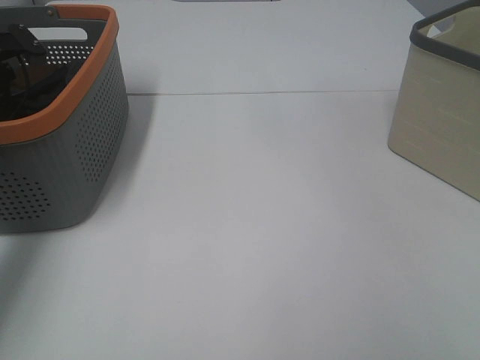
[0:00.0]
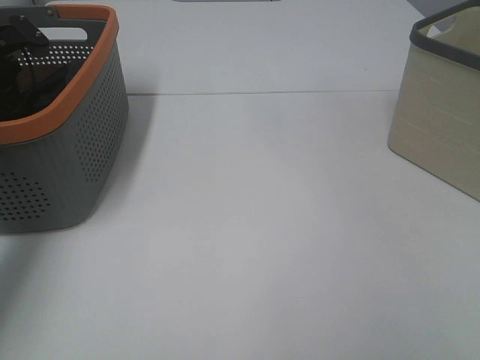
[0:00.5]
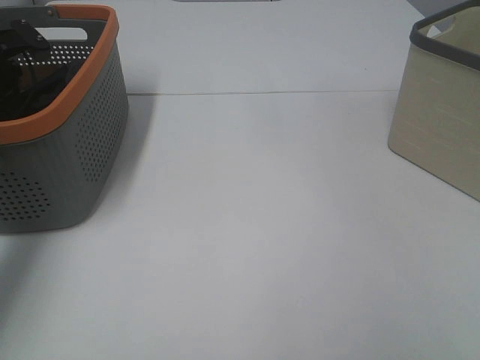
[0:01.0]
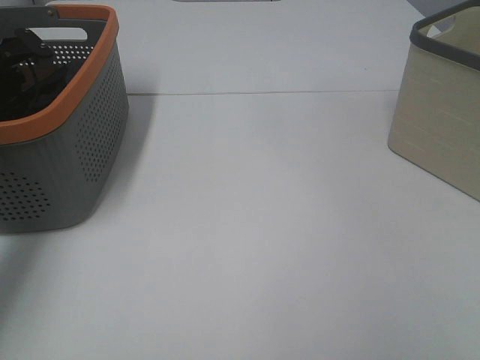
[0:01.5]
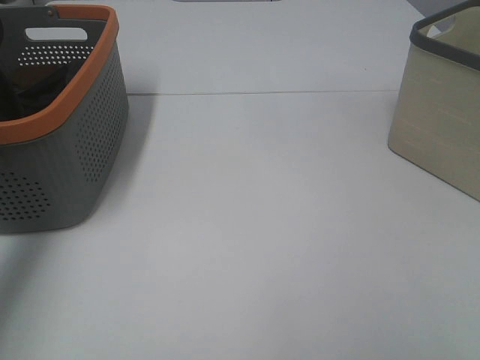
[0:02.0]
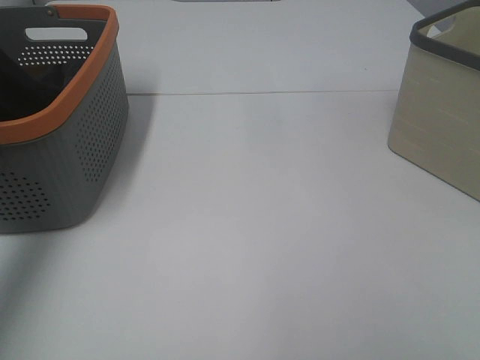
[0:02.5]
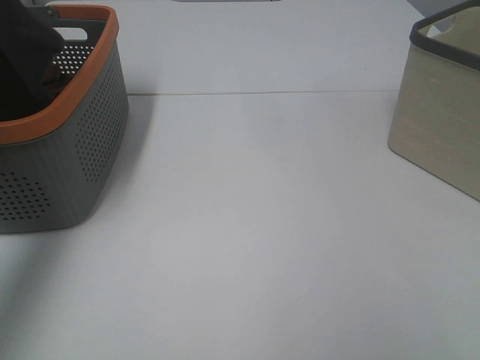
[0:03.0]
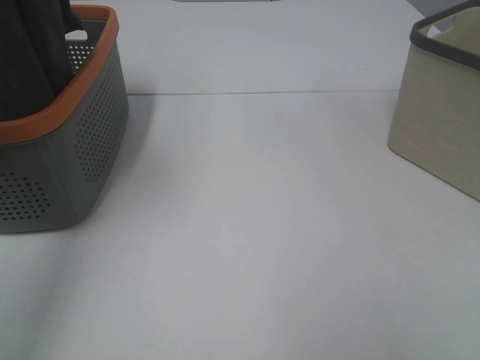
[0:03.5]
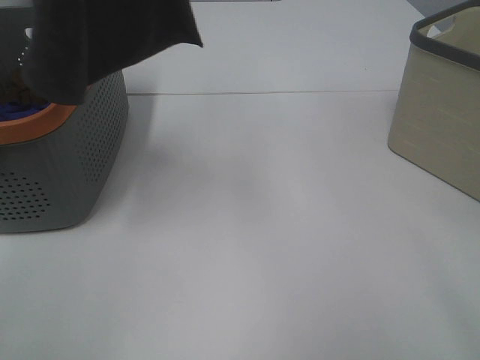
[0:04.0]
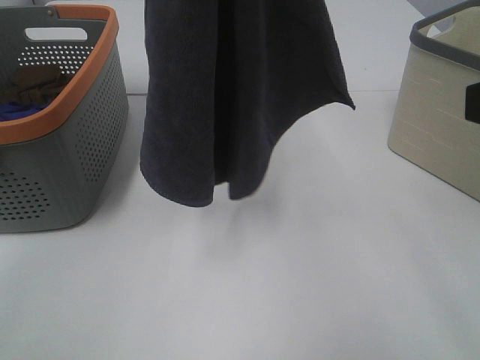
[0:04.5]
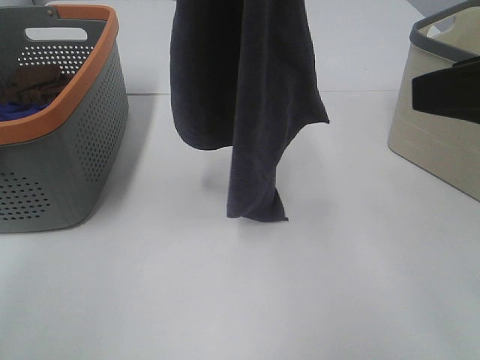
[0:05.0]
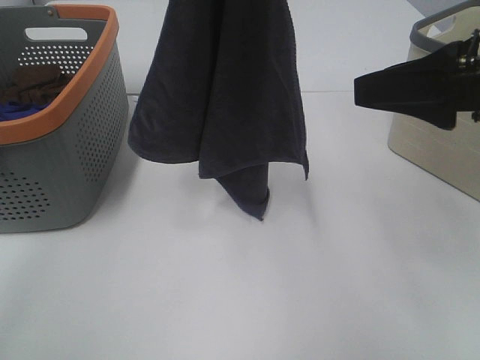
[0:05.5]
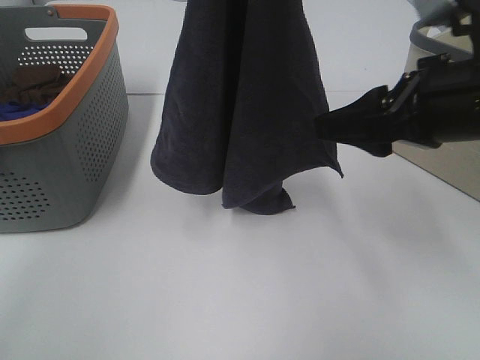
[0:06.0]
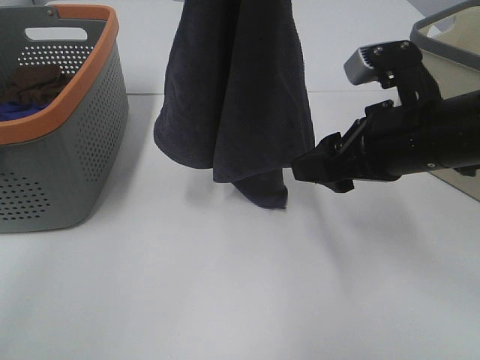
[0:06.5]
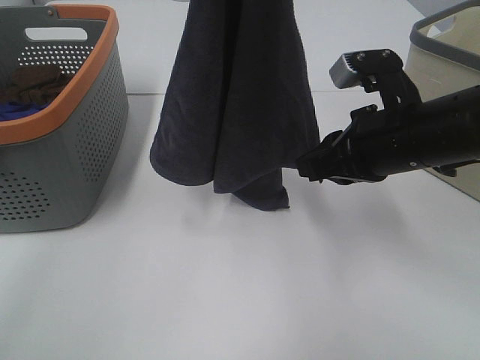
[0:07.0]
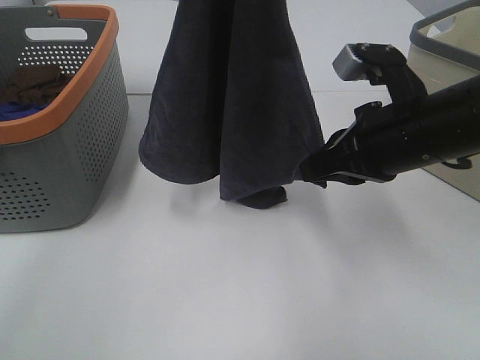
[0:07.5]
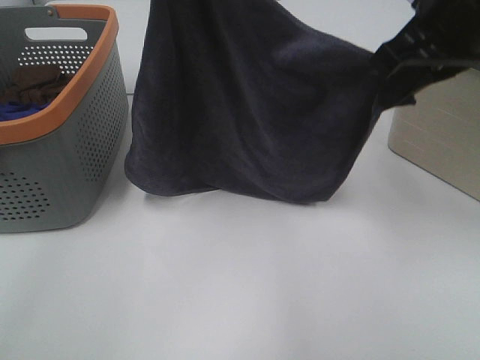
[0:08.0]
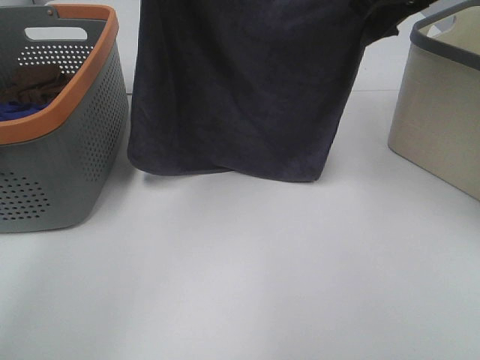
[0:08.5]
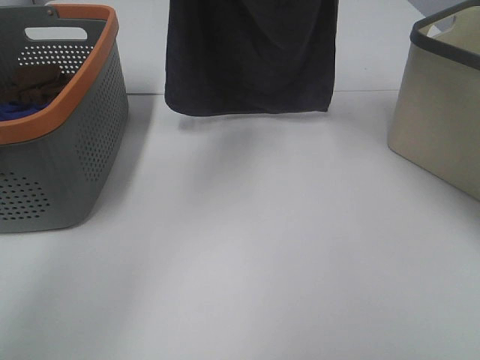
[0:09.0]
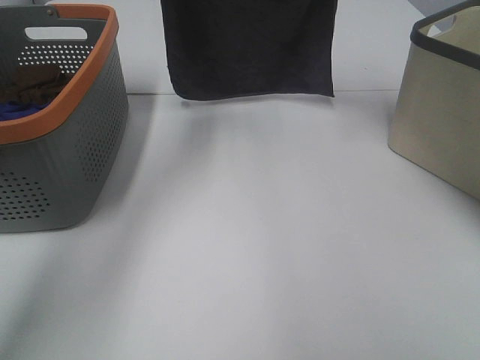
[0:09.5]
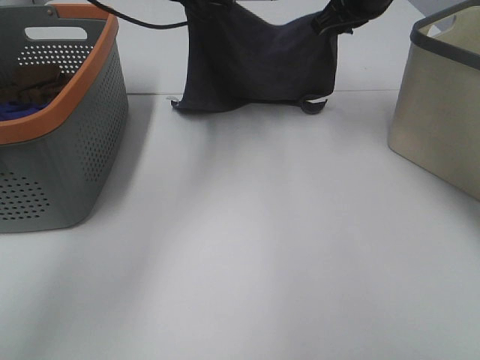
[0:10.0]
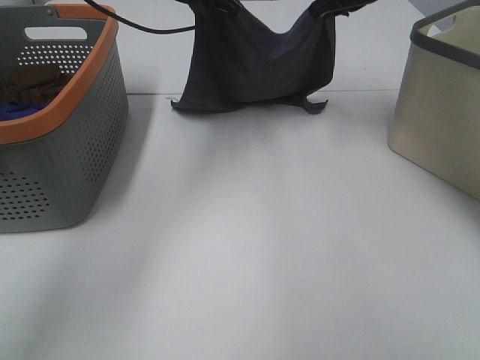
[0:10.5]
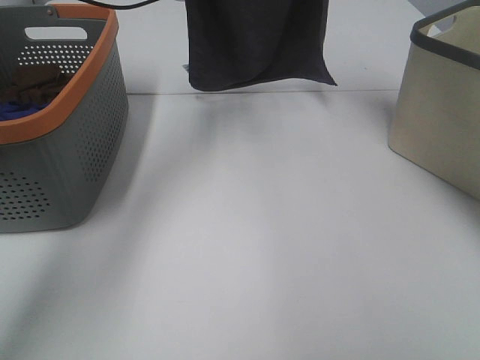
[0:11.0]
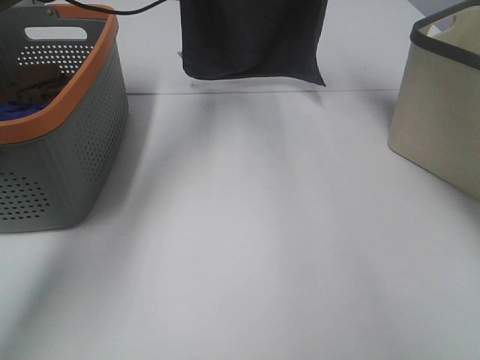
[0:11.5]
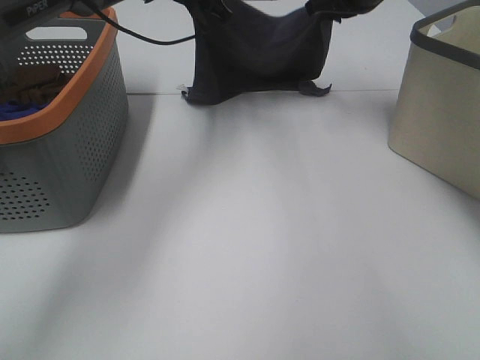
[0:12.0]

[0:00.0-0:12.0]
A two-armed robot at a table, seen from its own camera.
Task of the whole recording: Remove the towel and place it.
Step, 0:03.0 to 0:06.0: Right hand: grab a corner of the grey towel and straighten it.
Step, 0:06.5 to 0:11.0: Right hand: spread the grey towel flat on the table.
Step, 0:06.5 to 0:11.5: Left hand: spread the grey towel flat on the table.
0:02.0 to 0:04.0: The left gripper heads upward, to the right and backward, covering roughly 35 cm. The right gripper heads forward and upward, covering about 10 cm.
0:04.0 to 0:06.0: The right gripper moves forward and downward, roughly 20 cm. The left gripper travels downward and to the right by about 10 cm.
0:06.0 to 0:08.0: The left gripper changes place by about 5 cm. The right gripper goes some 10 cm upward and forward, and closes its fingers.
0:08.0 to 0:10.0: The left gripper heads forward and downward, covering some 20 cm, while the right gripper travels forward by some 20 cm.
0:10.0 to 0:12.0: The right gripper moves approximately 10 cm upward and comes back.

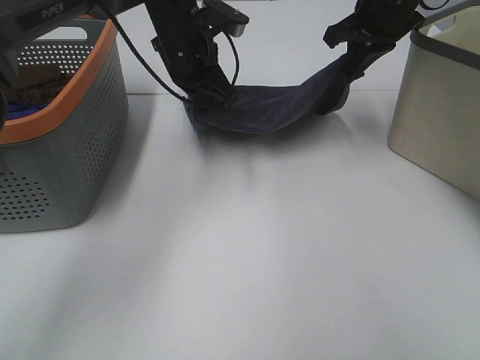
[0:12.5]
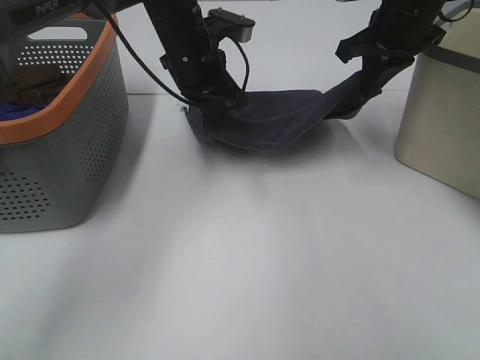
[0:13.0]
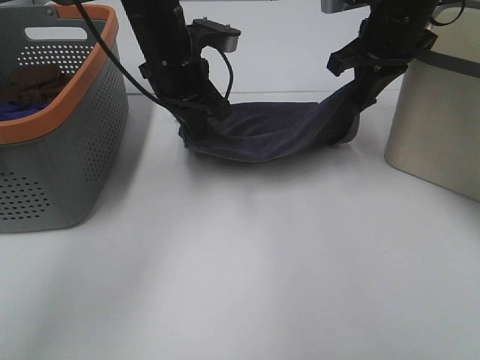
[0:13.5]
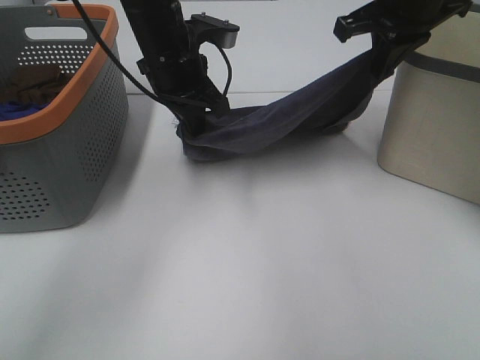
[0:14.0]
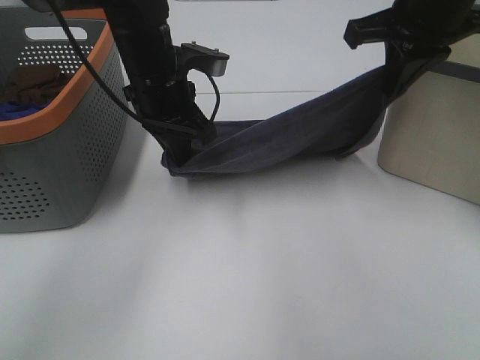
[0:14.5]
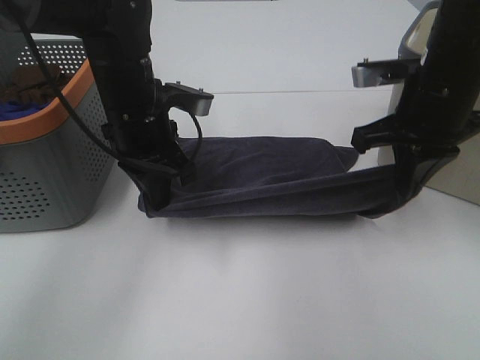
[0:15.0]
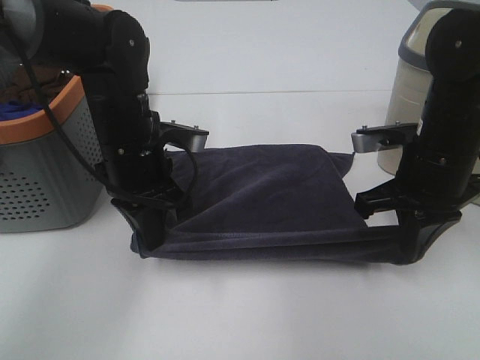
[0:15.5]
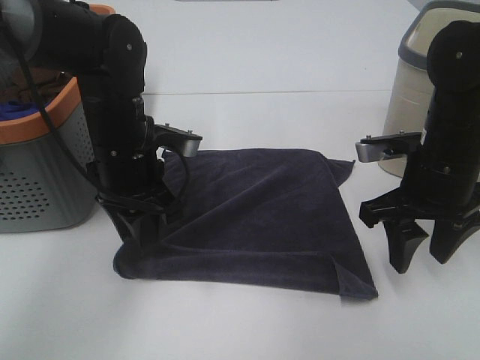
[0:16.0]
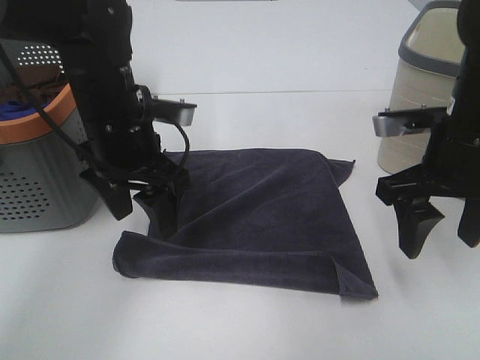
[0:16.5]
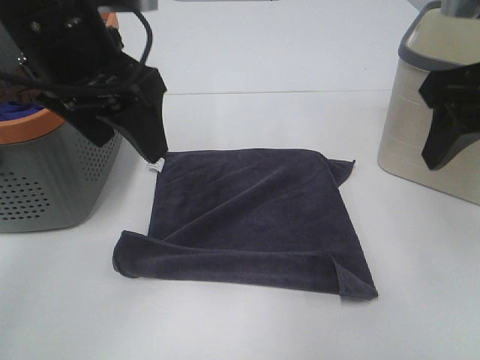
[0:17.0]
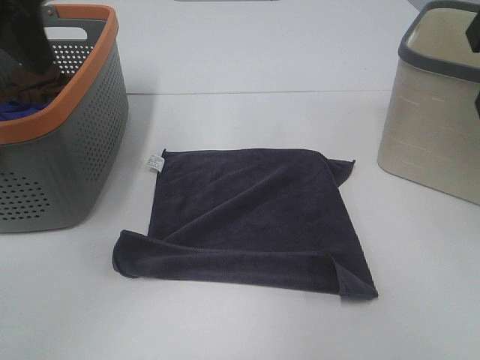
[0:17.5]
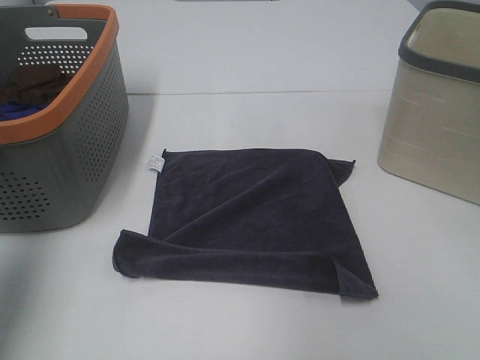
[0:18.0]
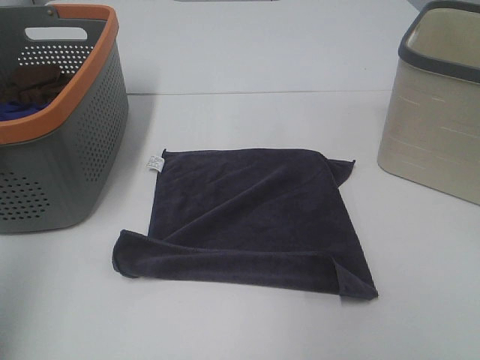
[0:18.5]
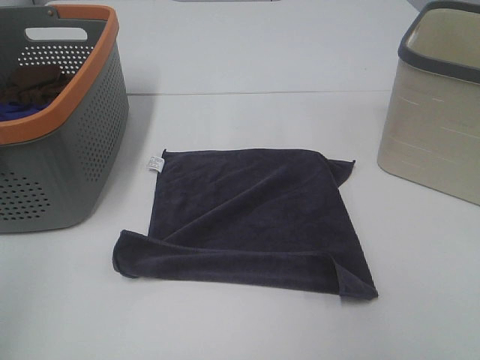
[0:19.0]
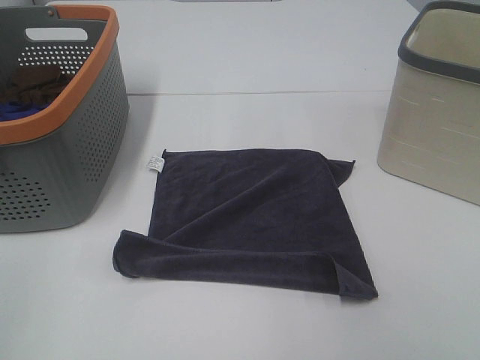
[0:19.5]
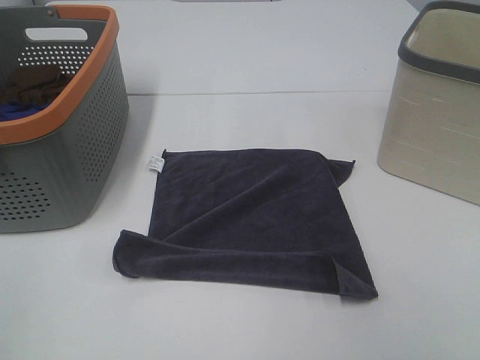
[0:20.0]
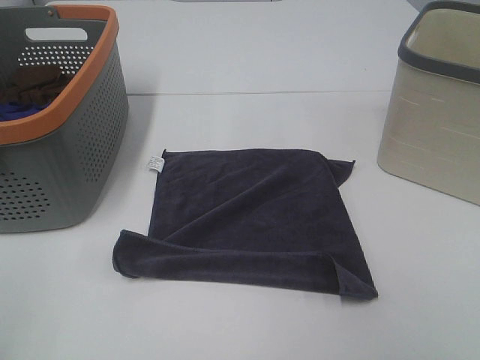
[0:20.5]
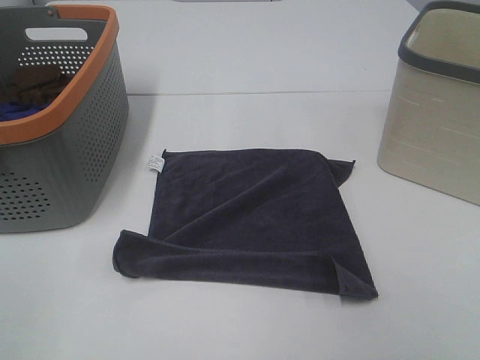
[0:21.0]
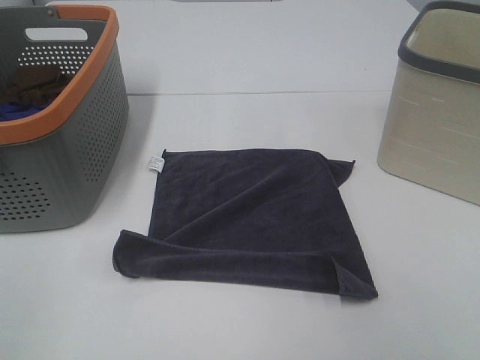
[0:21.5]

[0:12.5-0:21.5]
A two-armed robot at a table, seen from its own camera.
Task of the whole recording: Remove the towel and place it.
0:12.5 to 0:14.5: The left gripper travels backward by some 10 cm. Meanwhile the right gripper is displaced backward by about 10 cm.
0:14.5 to 0:17.0: The left gripper shifts roughly 15 cm upward and backward, and opens its fingers. Meanwhile the right gripper heads backward, covering roughly 10 cm, reaches approximately 15 cm downward, then returns, and opens its fingers.
0:17.0 to 0:19.5: The left gripper heads backward and to the left, covering roughly 35 cm, while the right gripper shifts about 20 cm backward.

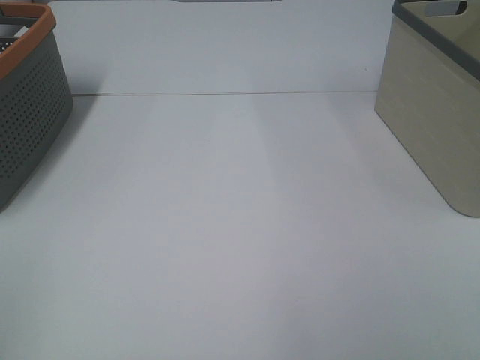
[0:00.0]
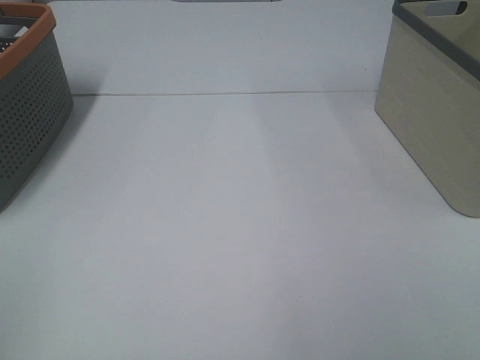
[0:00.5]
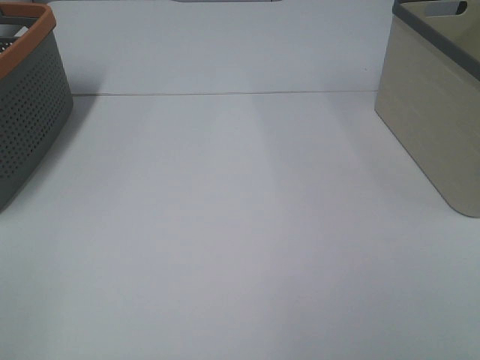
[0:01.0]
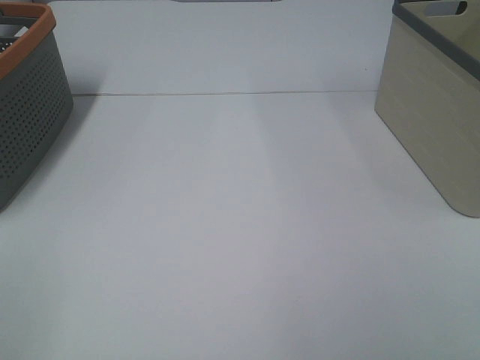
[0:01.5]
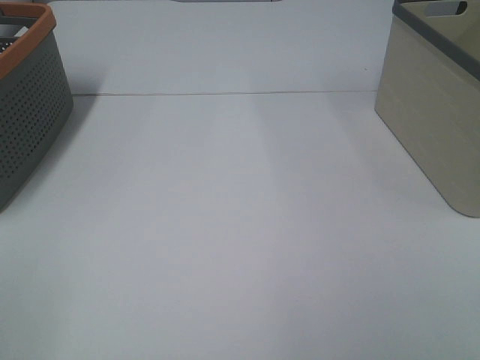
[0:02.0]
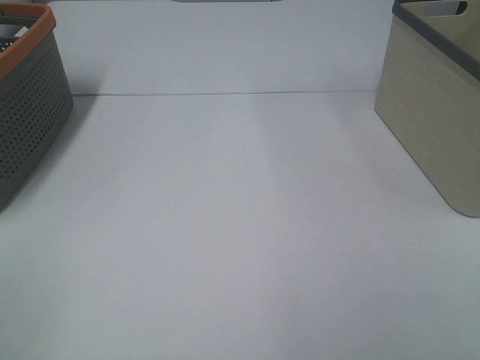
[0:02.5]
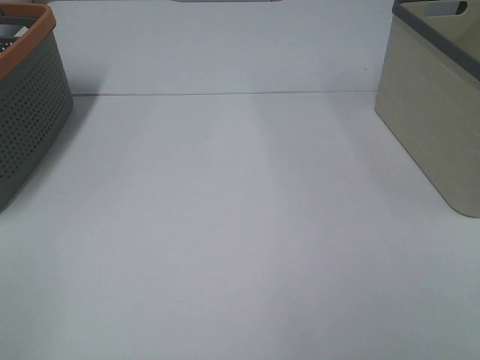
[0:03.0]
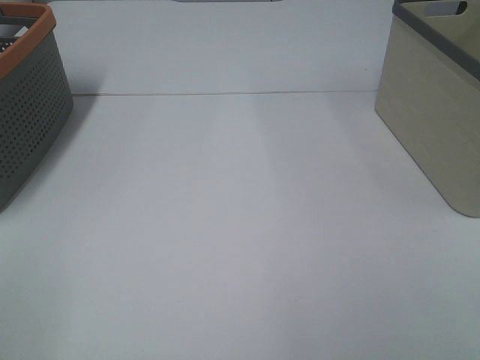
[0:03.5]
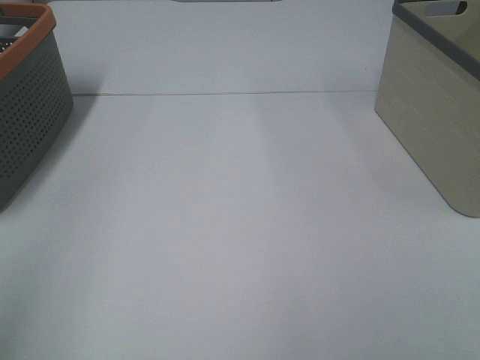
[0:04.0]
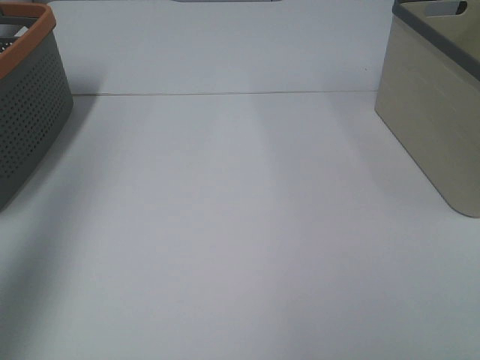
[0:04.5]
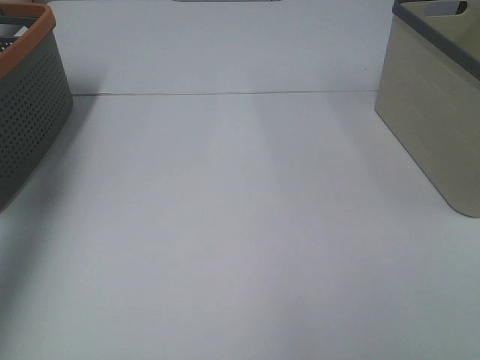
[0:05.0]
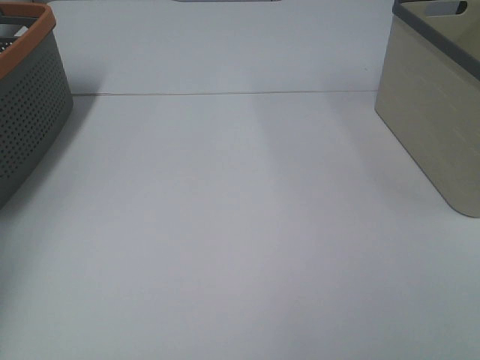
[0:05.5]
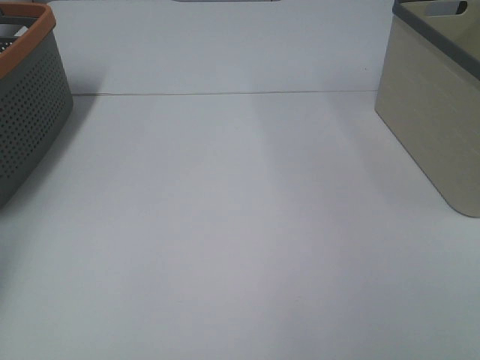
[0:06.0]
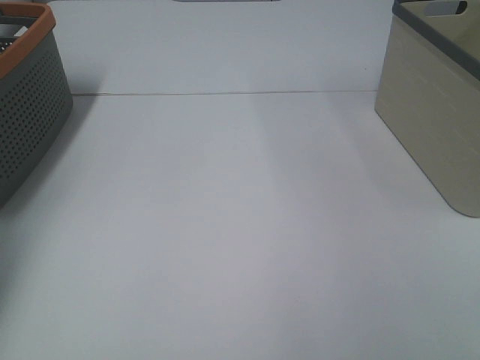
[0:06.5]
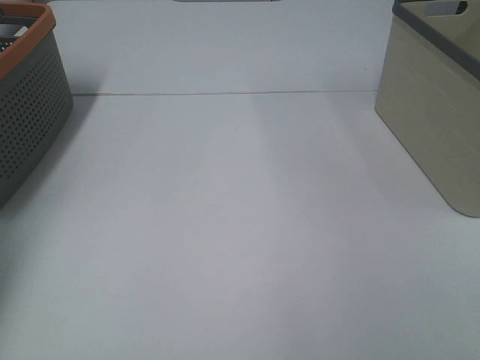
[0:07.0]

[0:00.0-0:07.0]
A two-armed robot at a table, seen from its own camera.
Task of the whole recording: Remove the towel and place it.
0:03.5 to 0:05.0: The left gripper is displaced forward by about 35 cm.
0:05.0 to 0:07.0: The left gripper moves downward and forward, some 20 cm.
